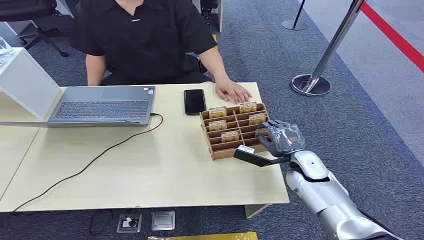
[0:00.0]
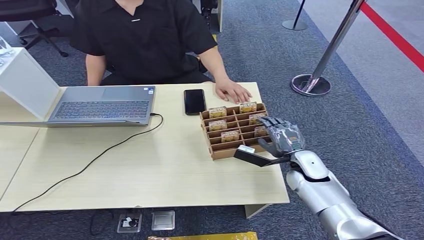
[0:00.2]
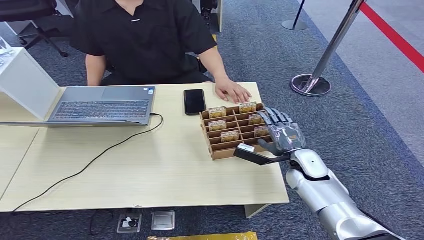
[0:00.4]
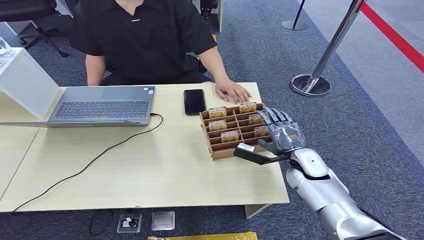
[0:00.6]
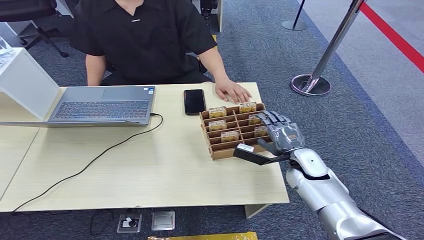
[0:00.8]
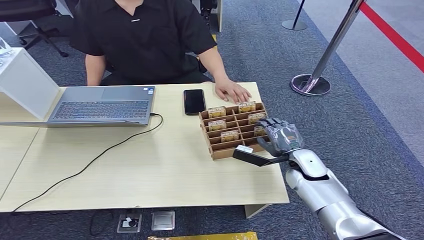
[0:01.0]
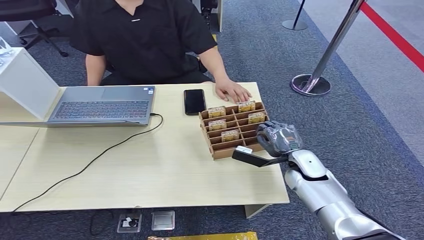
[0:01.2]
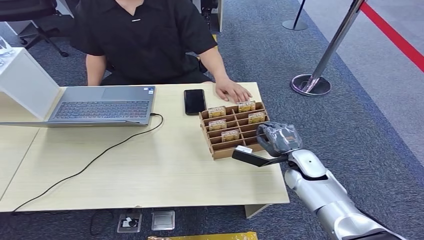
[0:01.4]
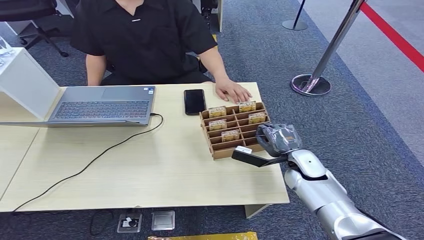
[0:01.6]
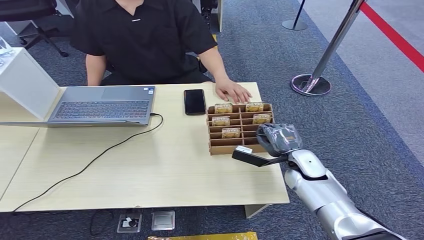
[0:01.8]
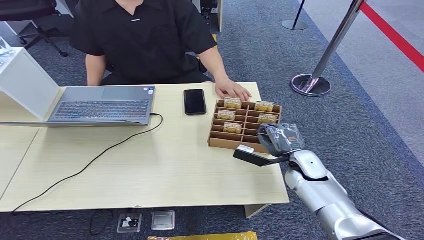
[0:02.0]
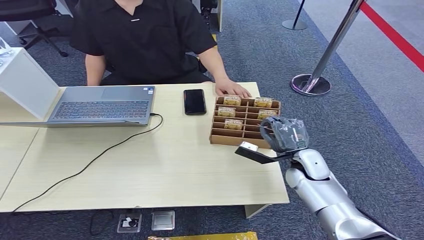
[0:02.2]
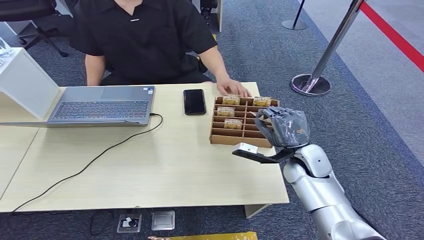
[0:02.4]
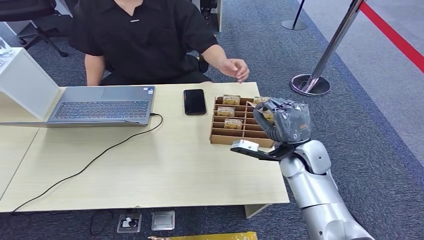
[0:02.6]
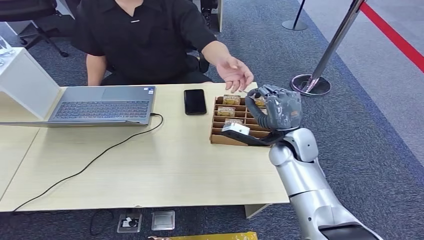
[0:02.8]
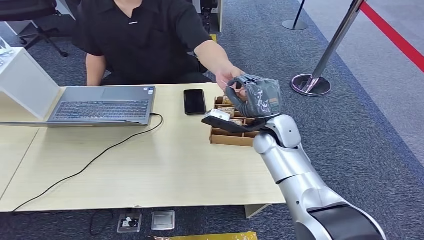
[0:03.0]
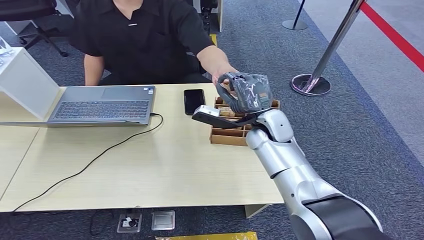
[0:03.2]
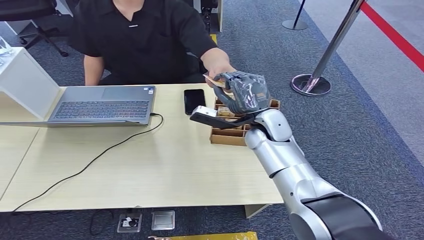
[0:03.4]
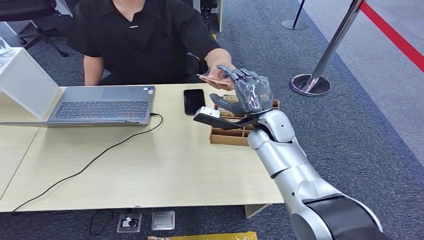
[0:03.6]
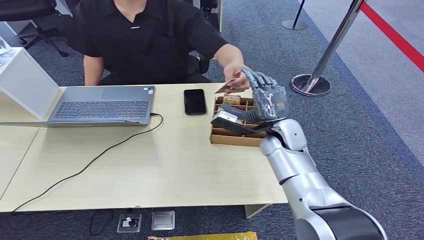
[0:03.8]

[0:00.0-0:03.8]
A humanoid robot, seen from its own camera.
Step, 0:00.0 to 0:02.4: Pick up the key card from the card box.
Step, 0:02.6 to 0:03.8: Hand the key card to the target.
0:01.2 to 0:02.6: The right hand shifts roughly 10 cm upward.
0:02.6 to 0:03.8: The right hand goes roughly 5 cm forward.
